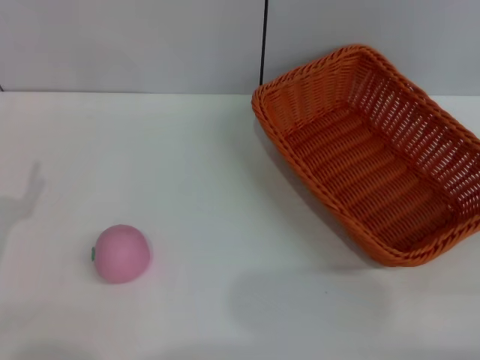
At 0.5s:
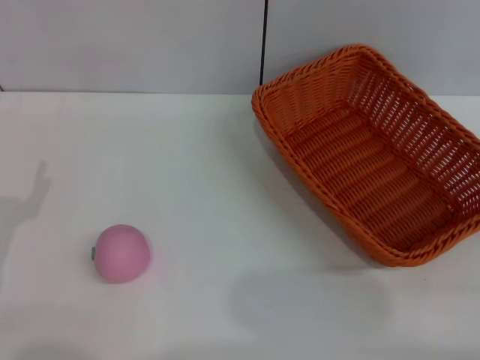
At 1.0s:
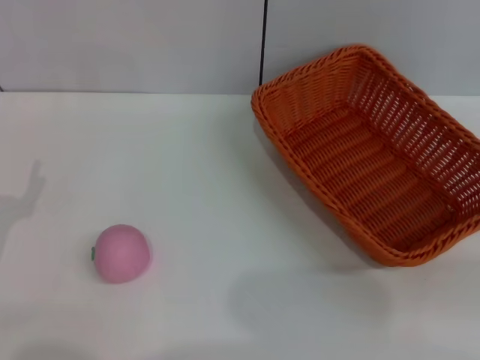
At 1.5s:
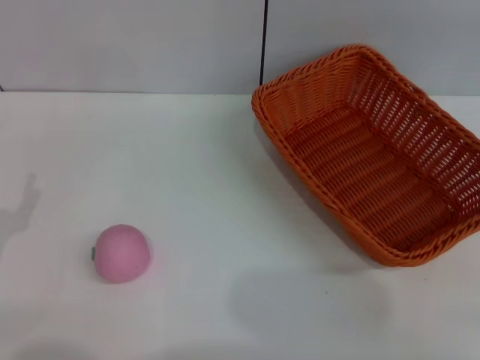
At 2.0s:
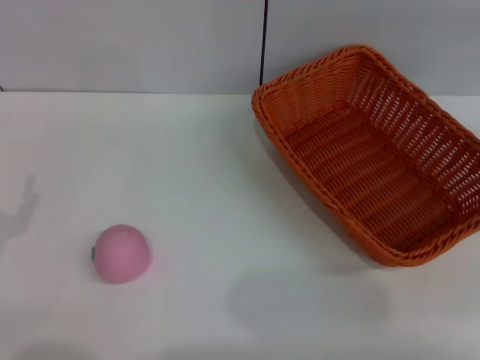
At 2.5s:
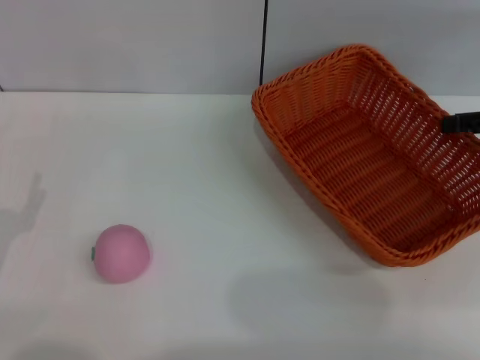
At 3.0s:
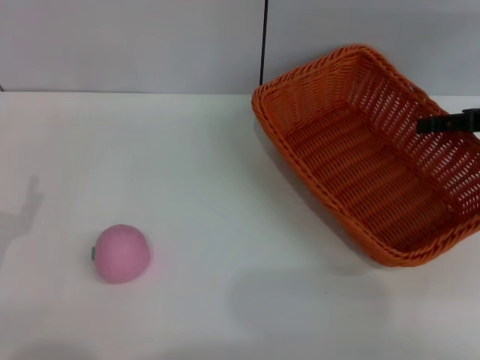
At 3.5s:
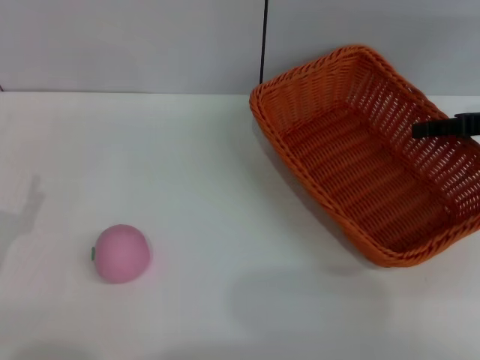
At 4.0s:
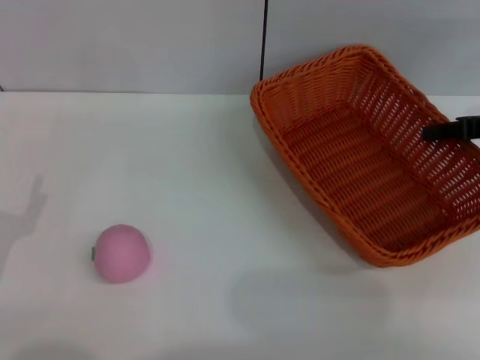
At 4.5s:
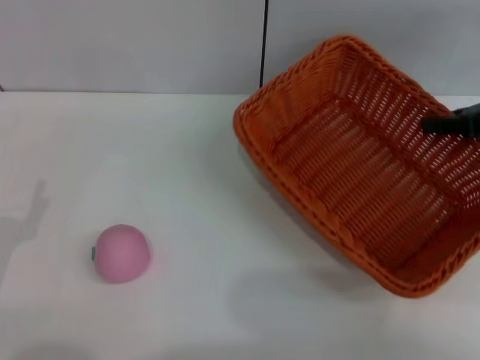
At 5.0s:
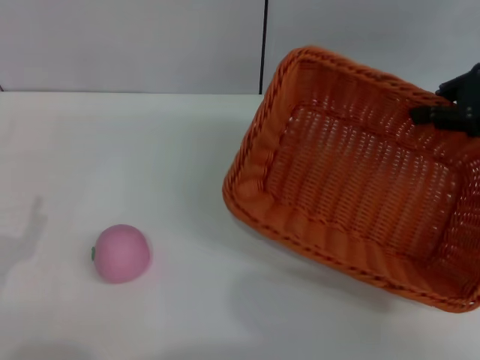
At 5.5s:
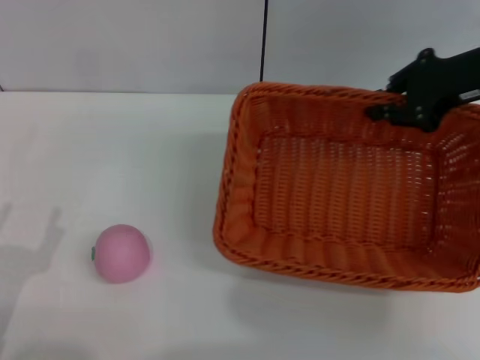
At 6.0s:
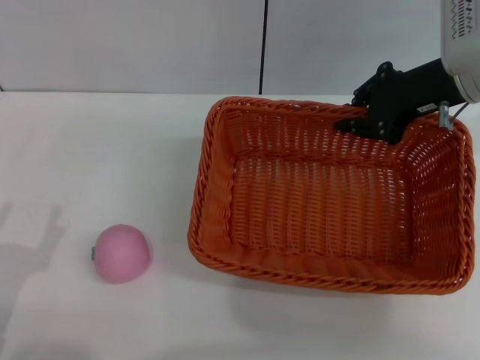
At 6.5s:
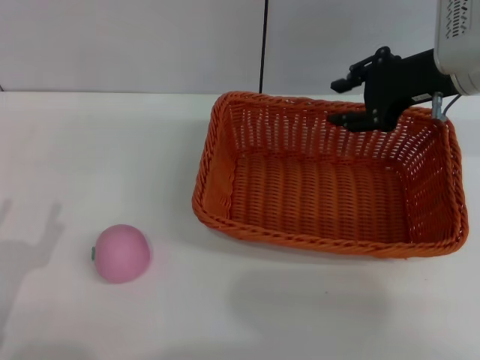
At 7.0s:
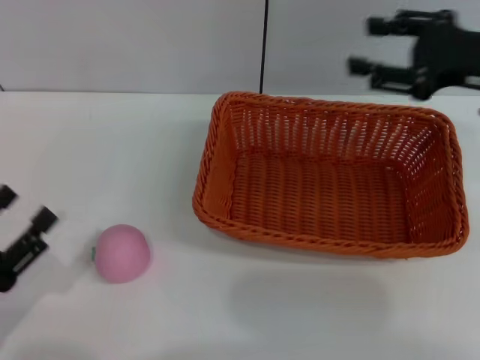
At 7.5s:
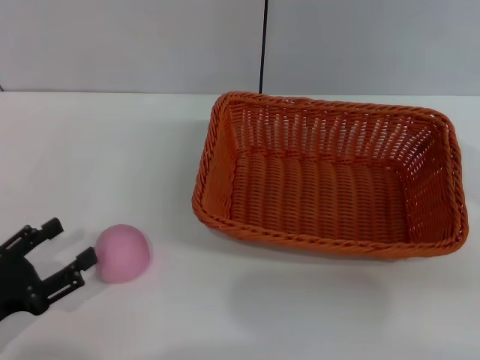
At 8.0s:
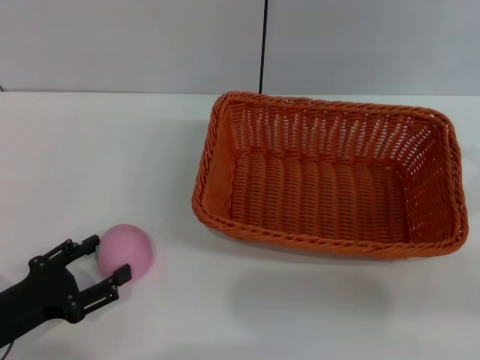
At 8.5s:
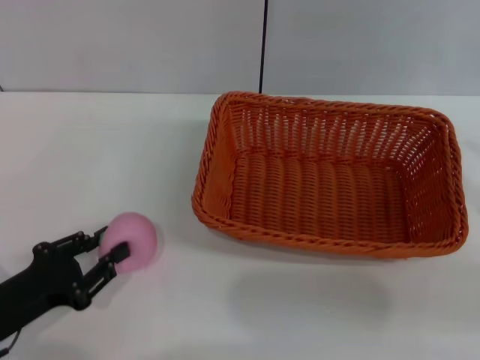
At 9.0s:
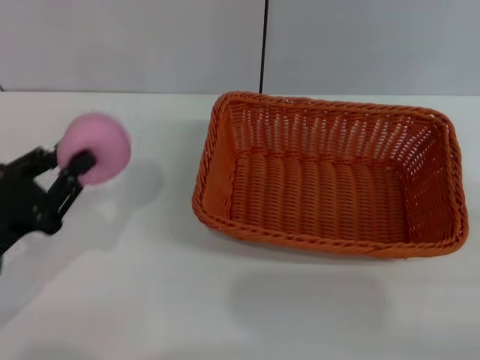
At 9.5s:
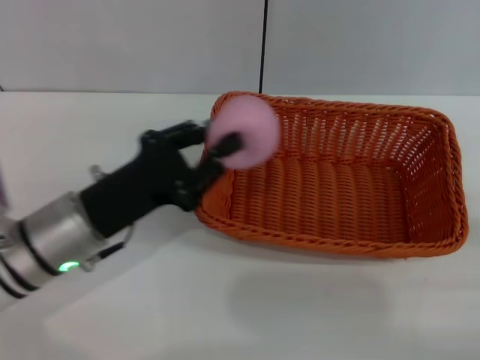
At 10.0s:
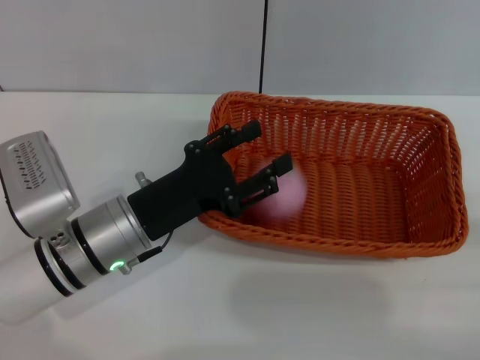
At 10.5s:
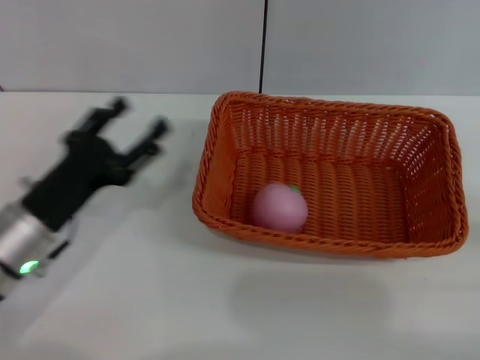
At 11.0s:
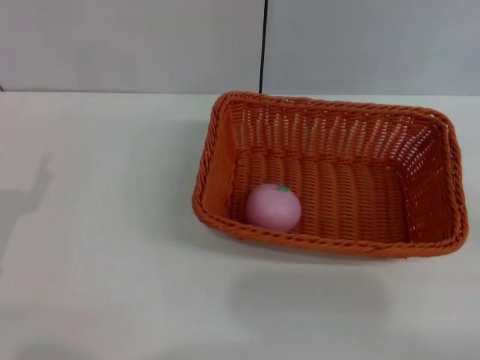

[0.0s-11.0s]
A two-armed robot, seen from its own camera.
Step, 0.0s to 4.5s: Pick up the light basket with the right gripper.
Step, 5.0s to 6.5s: Place the light basket in the center of view with the right gripper.
Step, 7.0s to 9.0s: Pick up the peach with the left gripper.
Step, 9.5s to 10.5s: Place the peach into the basket with the left gripper.
2.0s to 3.5s: The right gripper heads to the left and downward, covering approximately 10 cm.
3.5s to 5.5s: The right gripper heads to the left and upward, covering approximately 10 cm, and closes.
5.5s to 7.5s: The right gripper is displaced backward and to the right by approximately 15 cm, and opens up.
7.5s to 9.0s: The left gripper changes place by some 5 cm, and closes up.
9.0s to 11.0s: The left gripper travels to the right and back again, approximately 15 cm each way, and opens up.

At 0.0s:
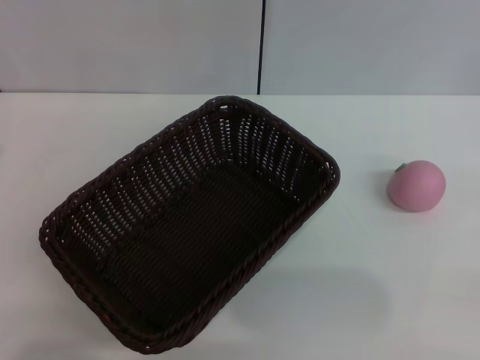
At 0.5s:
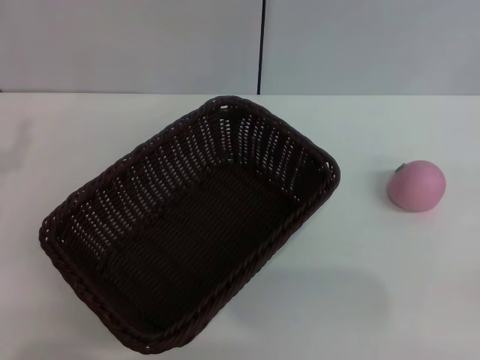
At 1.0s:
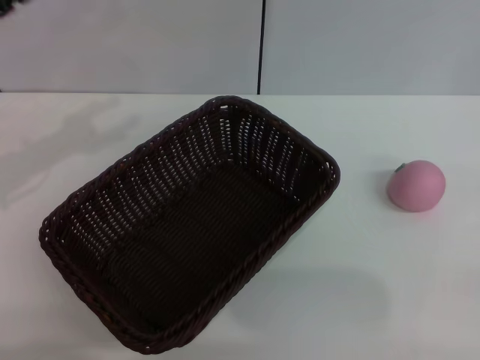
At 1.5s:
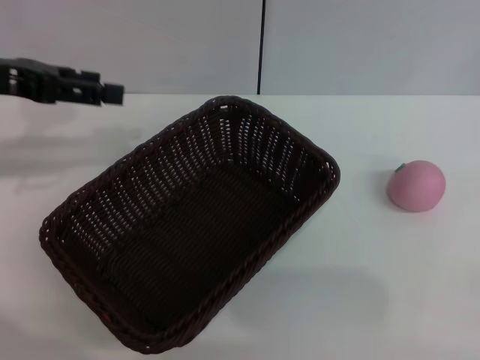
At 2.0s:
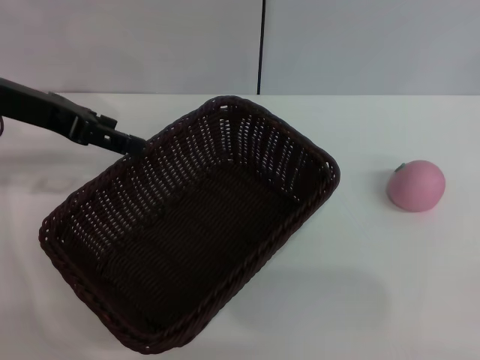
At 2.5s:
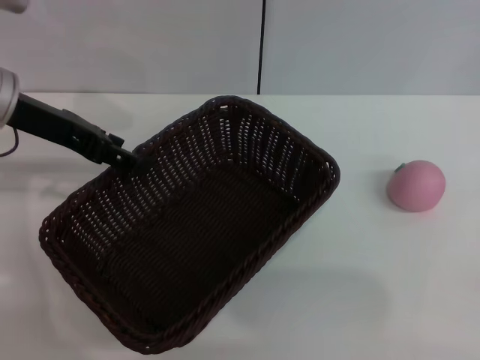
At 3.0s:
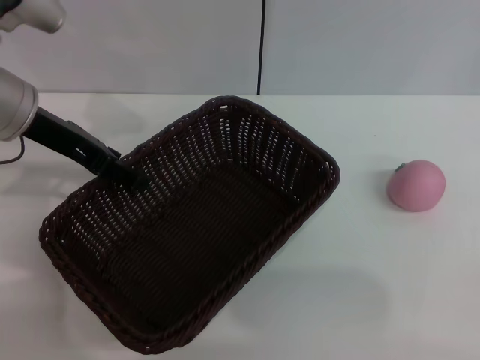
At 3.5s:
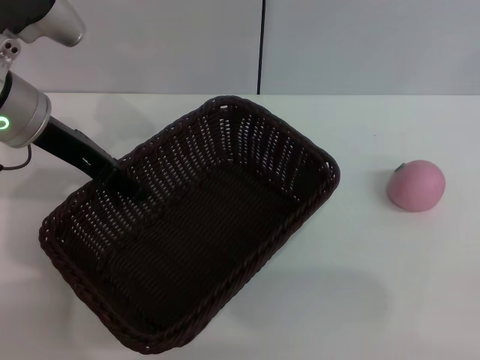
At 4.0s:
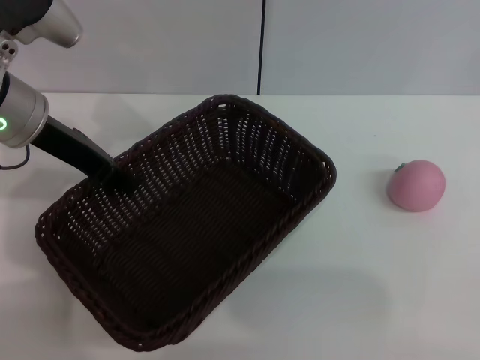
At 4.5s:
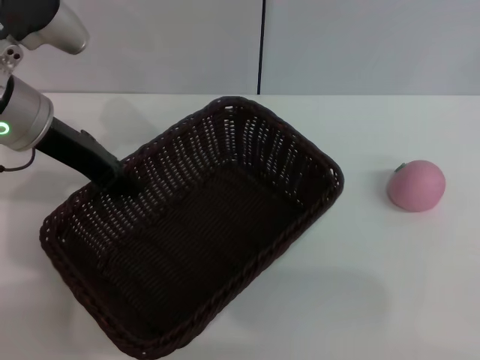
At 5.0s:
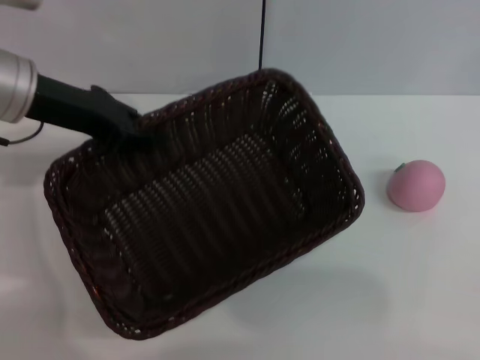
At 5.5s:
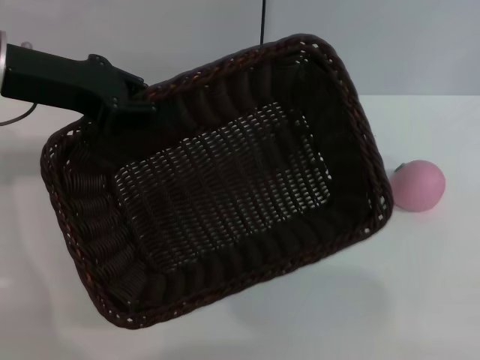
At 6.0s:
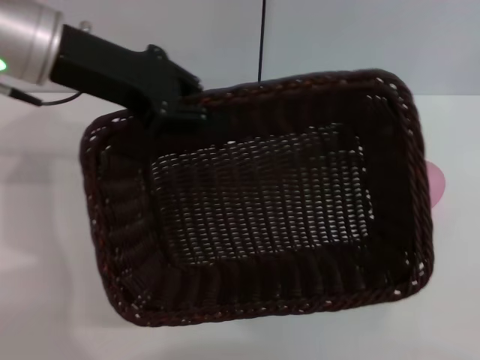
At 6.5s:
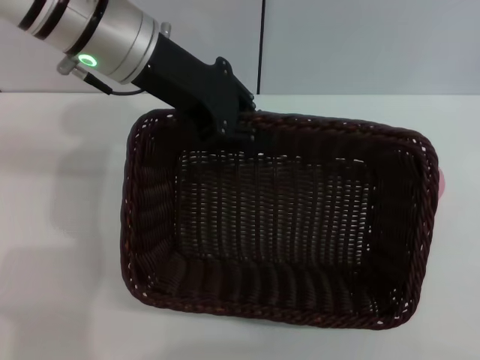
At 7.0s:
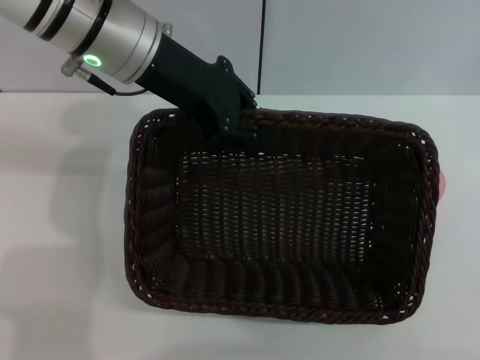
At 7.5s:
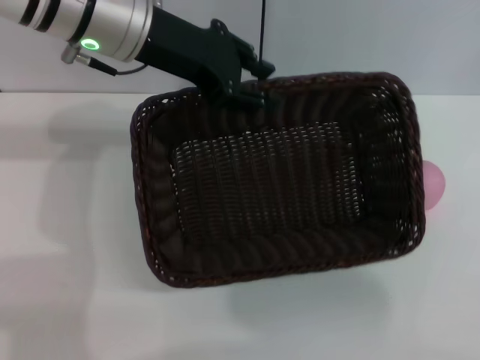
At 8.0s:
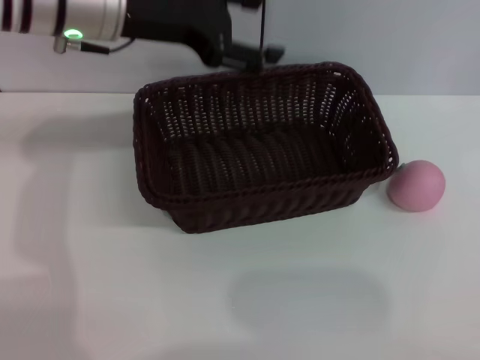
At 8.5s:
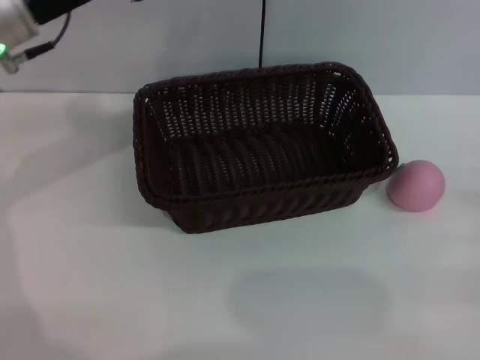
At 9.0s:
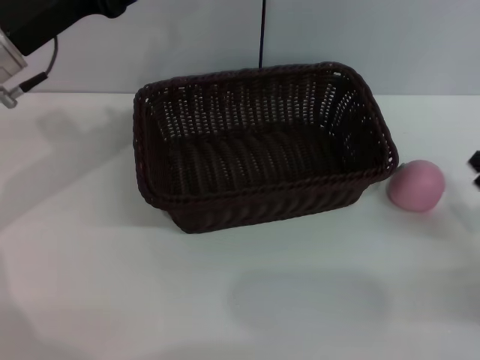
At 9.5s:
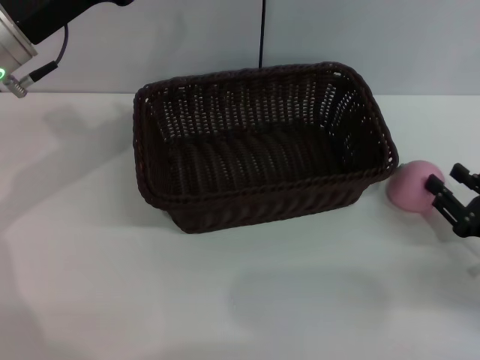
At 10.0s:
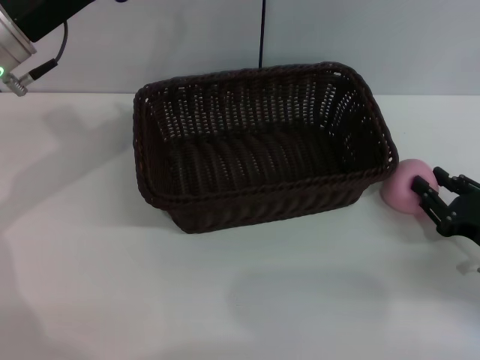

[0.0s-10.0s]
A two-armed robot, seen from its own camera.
Step, 0.0s to 5.0s: Pick up the dark basket with the left gripper.
Step, 5.5s to 8.5s: Place the dark basket in the center of view with the right gripper.
0.0s to 2.0s: The left gripper moves forward, upward and to the right, roughly 20 cm.
2.0s to 4.0s: The left gripper closes up.
4.0s to 6.0s: The left gripper goes approximately 5 cm upward, and closes.
6.0s to 8.0s: The left gripper opens its fingers.
8.0s to 10.0s: Both grippers travel together to the left, about 10 cm.

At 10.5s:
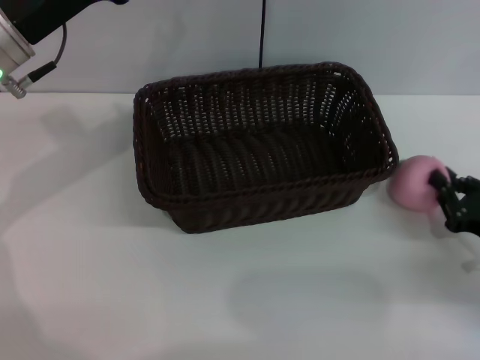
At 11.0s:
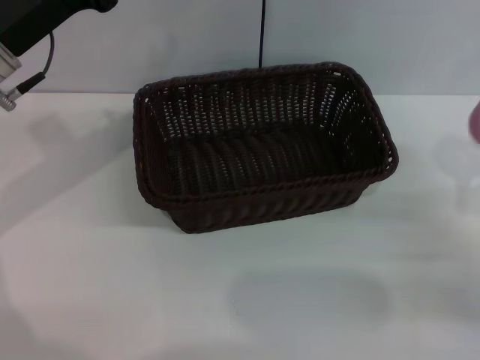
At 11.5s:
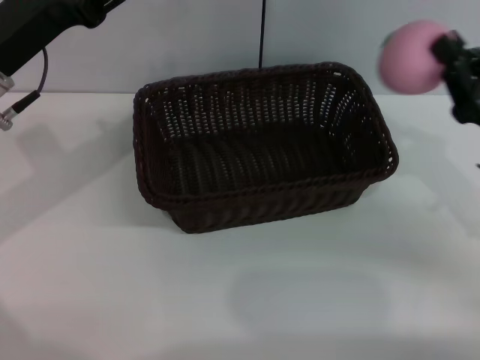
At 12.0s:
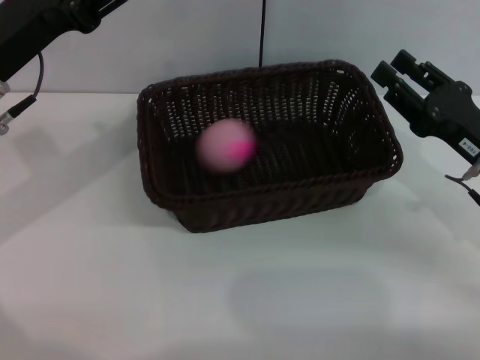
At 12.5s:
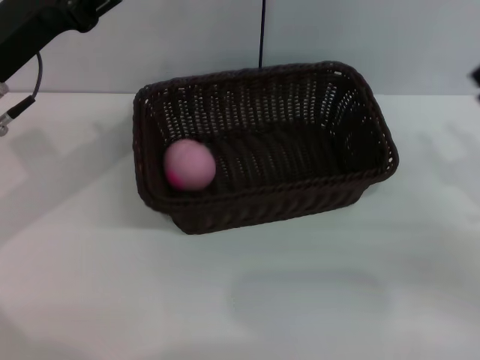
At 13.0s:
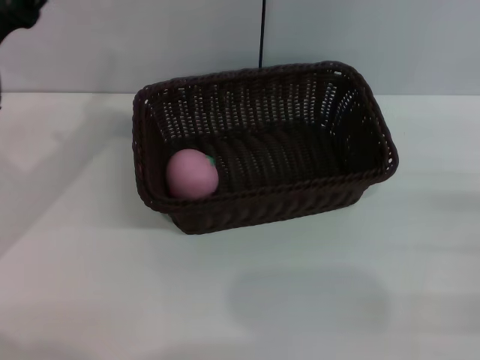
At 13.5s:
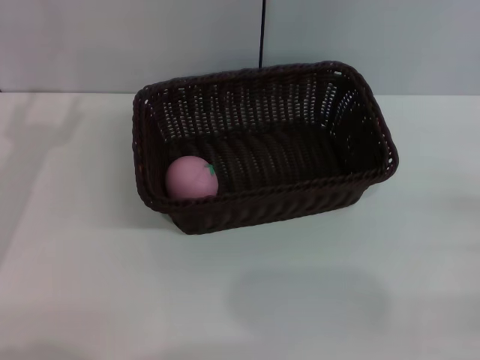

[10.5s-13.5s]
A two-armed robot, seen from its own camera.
10.5s to 12.0s: The right gripper travels upward and forward by some 10 cm.
12.0s to 13.5s: The left gripper is displaced downward, to the left and backward by roughly 10 cm, while the right gripper shifts roughly 15 cm to the right and backward, and opens its fingers.
